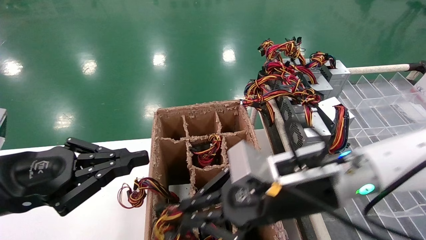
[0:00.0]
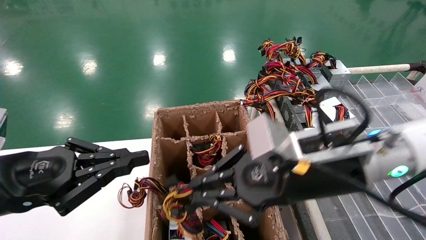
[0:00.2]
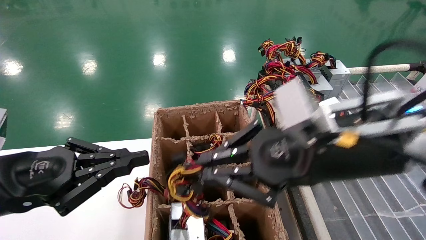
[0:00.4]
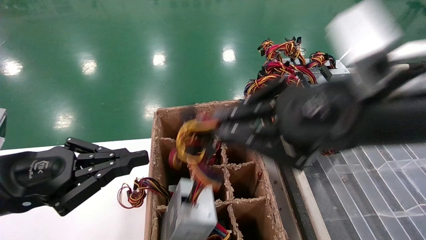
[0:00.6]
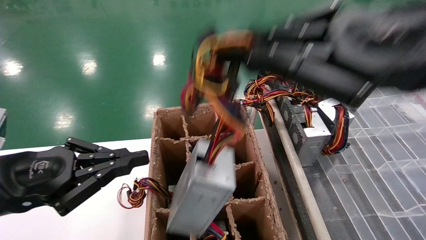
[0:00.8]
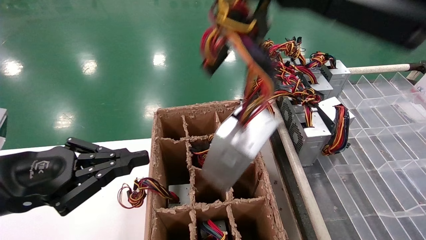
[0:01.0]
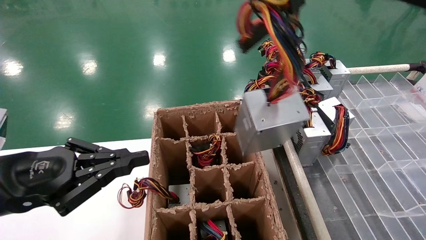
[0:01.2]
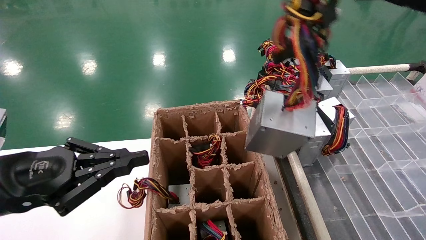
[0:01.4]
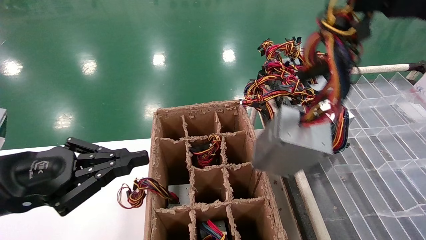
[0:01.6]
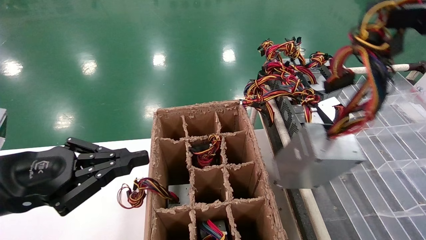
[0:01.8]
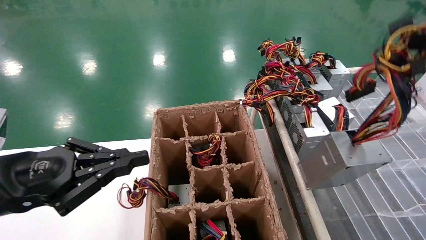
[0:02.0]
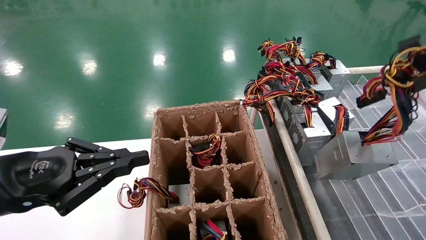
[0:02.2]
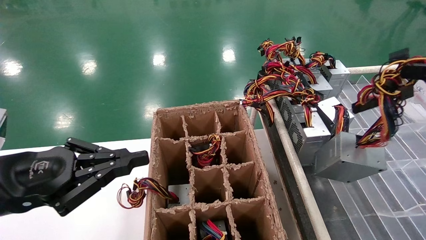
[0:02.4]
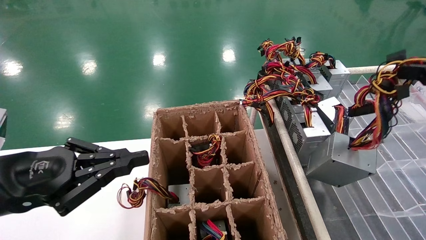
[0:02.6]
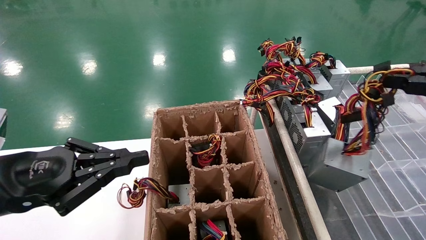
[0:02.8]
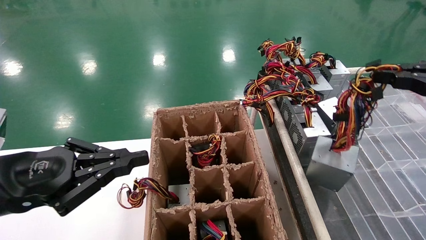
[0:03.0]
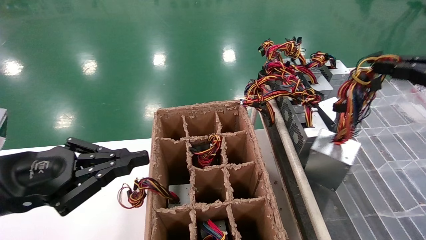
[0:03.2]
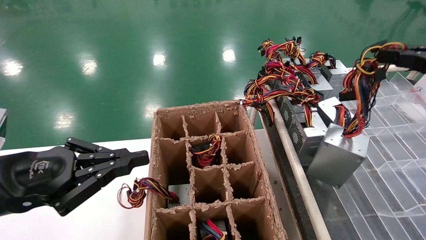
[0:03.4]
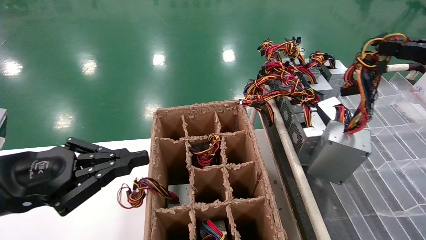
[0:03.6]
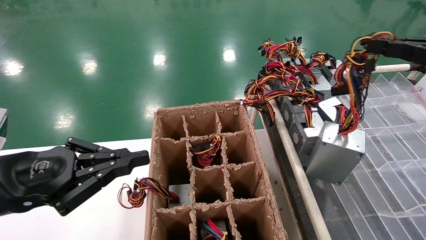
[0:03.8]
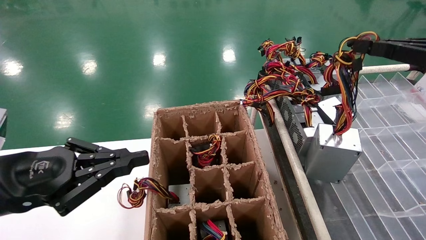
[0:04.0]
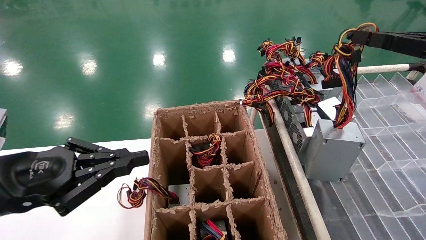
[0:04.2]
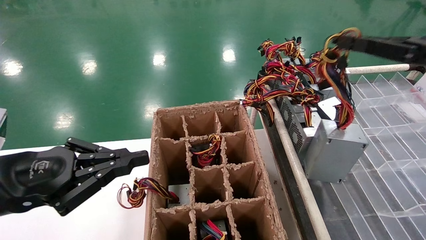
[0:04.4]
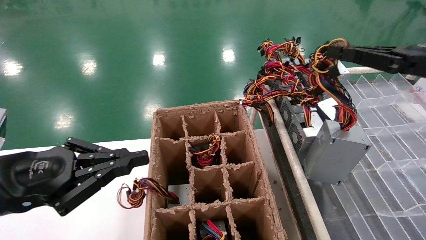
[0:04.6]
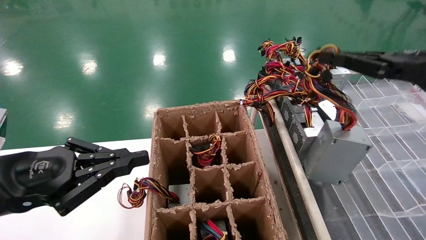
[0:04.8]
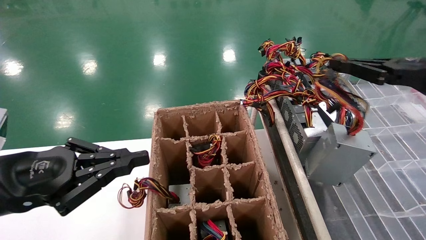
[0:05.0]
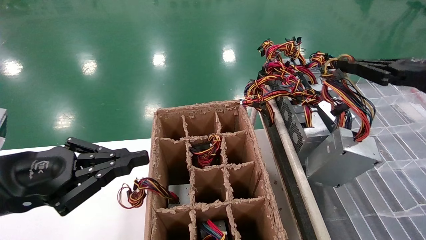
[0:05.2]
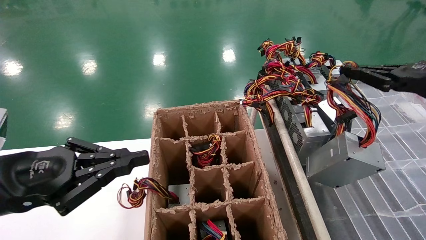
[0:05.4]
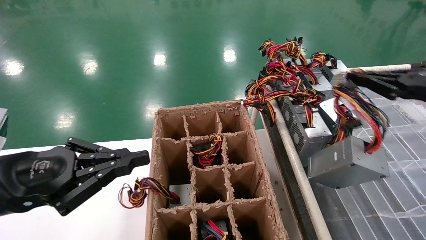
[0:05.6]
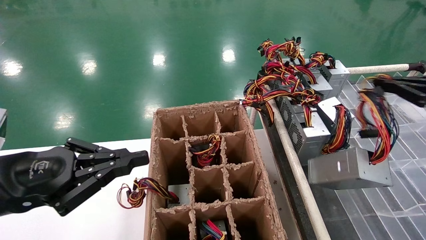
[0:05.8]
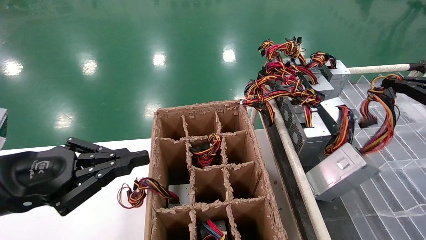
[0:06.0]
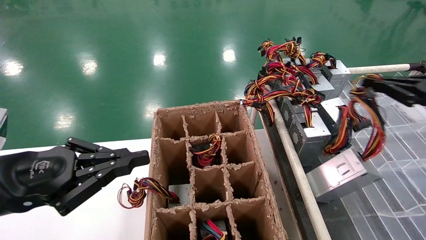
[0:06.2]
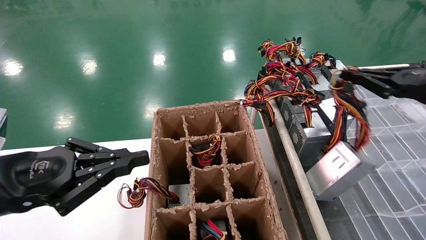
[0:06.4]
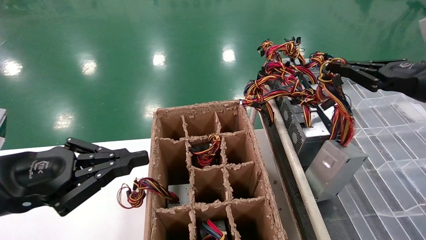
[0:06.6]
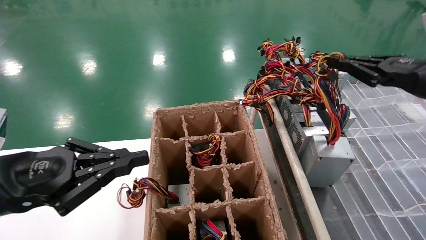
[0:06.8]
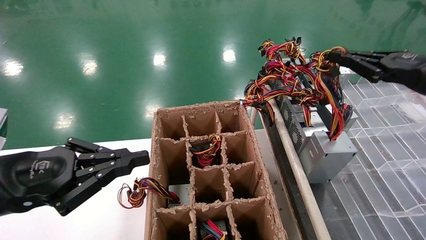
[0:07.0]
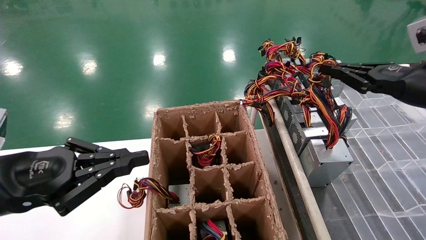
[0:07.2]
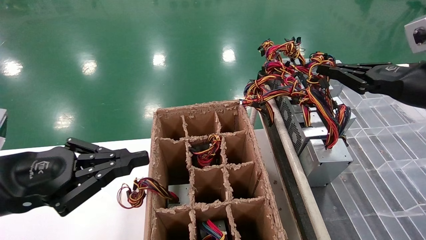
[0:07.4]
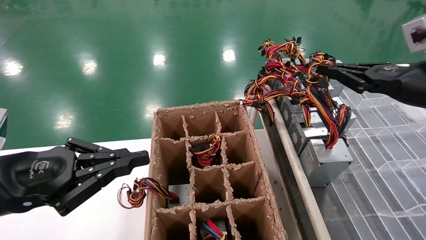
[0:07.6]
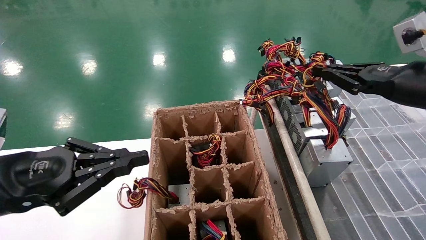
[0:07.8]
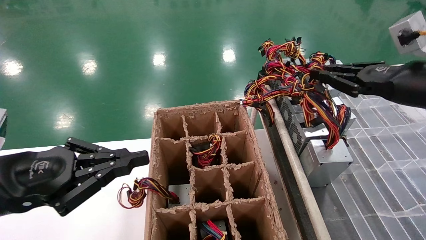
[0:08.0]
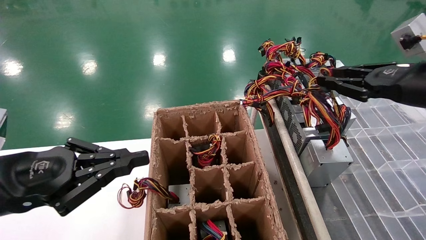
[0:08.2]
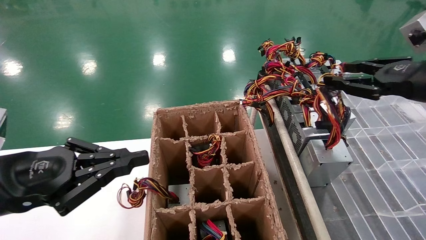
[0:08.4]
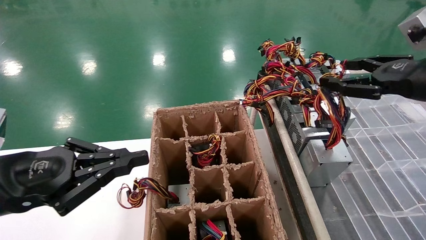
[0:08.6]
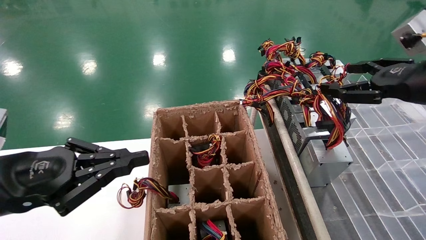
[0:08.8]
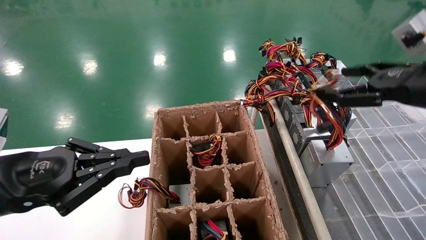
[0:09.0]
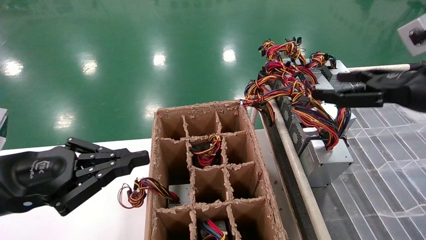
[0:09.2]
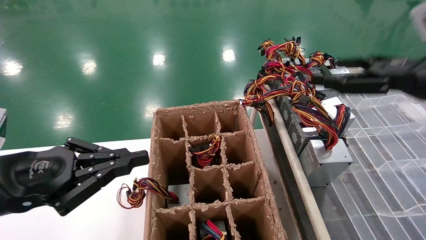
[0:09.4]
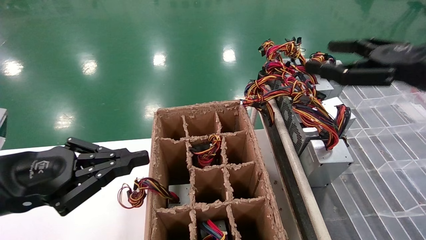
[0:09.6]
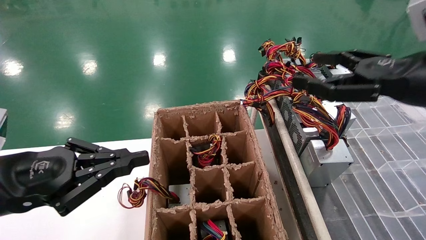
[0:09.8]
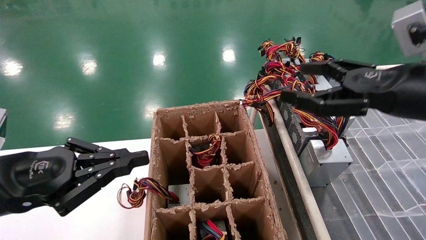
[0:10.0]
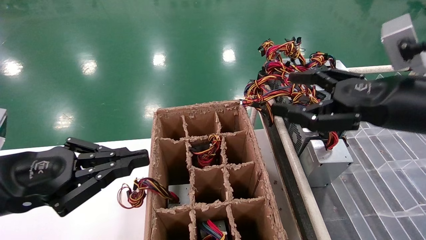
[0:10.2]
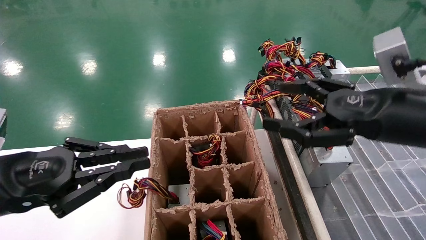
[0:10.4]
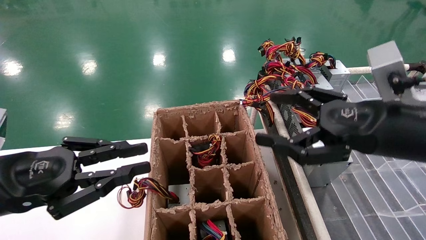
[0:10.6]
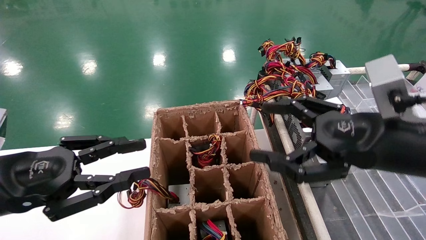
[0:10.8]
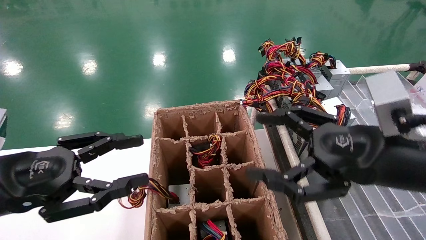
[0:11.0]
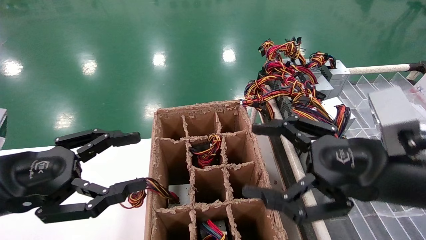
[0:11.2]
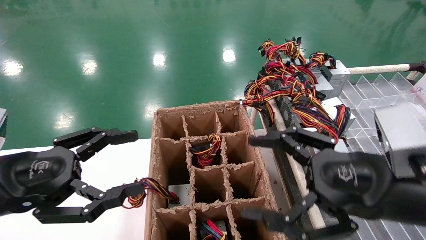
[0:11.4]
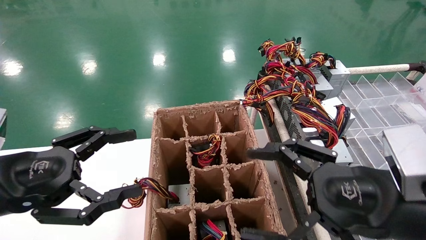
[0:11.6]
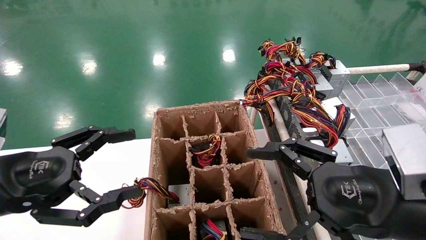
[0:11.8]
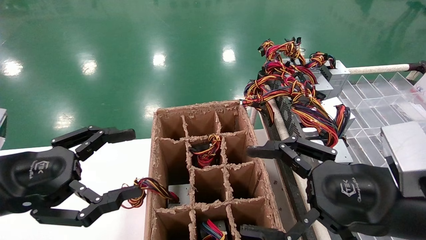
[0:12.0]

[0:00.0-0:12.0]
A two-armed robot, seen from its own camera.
Step, 0:00.0 to 0:09.4: Place the main unit power supply in the designated area.
0:00.0 to 0:01.6: The right gripper shifts some 30 cm upward, to the right and backward.
0:01.6 to 0:03.0: The right gripper goes approximately 15 cm to the right, downward and forward.
0:03.0 to 0:04.4: The right gripper shifts about 5 cm forward.
0:04.4 to 0:06.0: The right gripper shifts some 5 cm to the right.
0:06.0 to 0:07.6: The right gripper moves to the left, approximately 10 cm.
0:07.6 to 0:09.0: The right gripper opens its fingers.
0:09.0 to 0:10.4: The right gripper is displaced to the left by approximately 5 cm.
0:10.4 to 0:12.0: The right gripper goes some 10 cm downward; the left gripper opens up.

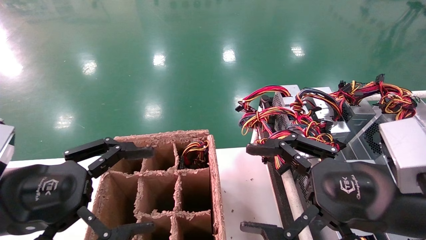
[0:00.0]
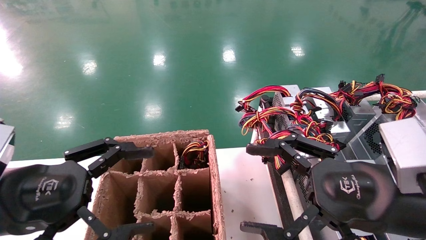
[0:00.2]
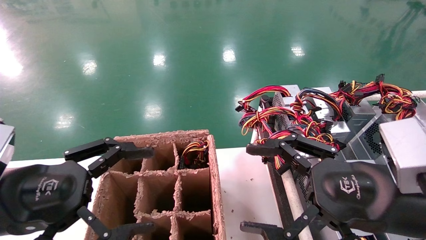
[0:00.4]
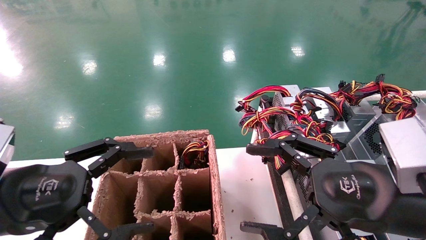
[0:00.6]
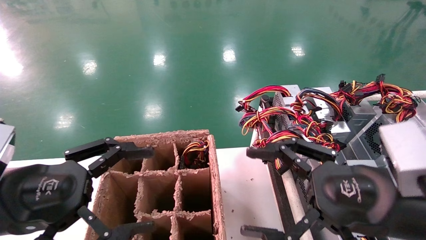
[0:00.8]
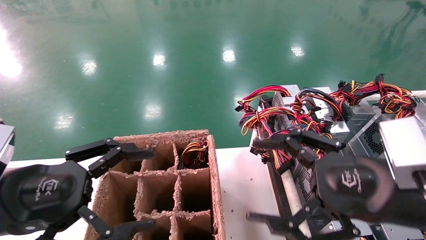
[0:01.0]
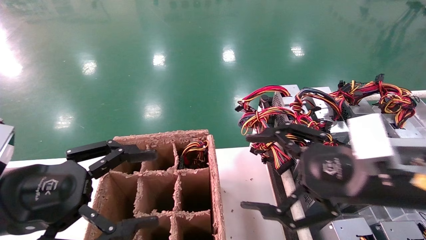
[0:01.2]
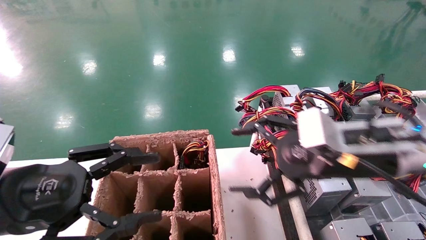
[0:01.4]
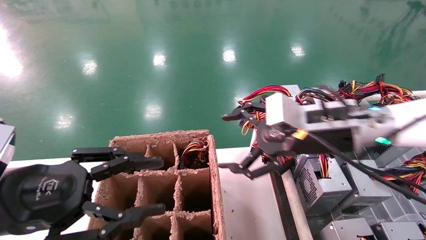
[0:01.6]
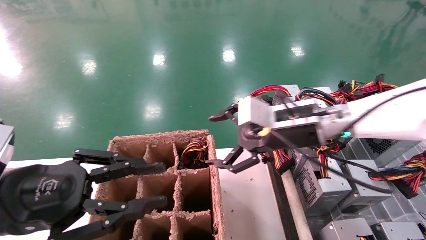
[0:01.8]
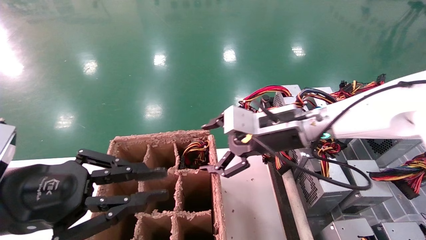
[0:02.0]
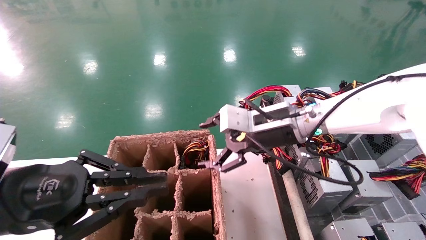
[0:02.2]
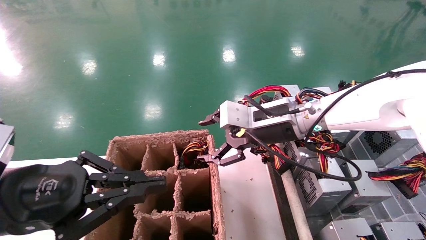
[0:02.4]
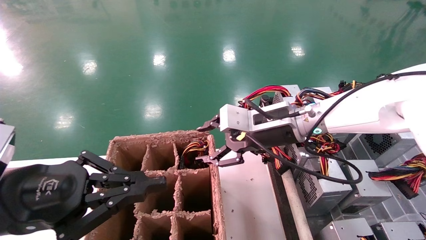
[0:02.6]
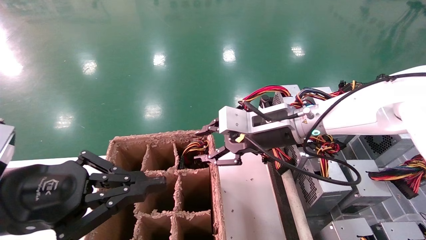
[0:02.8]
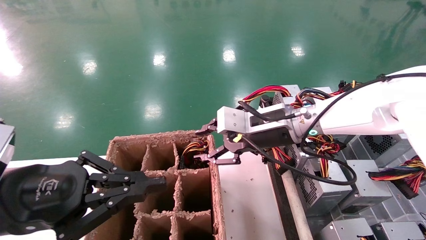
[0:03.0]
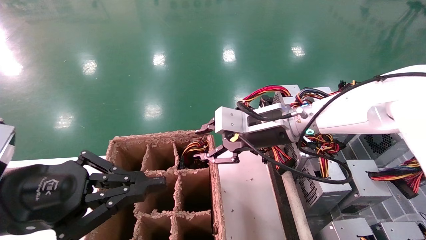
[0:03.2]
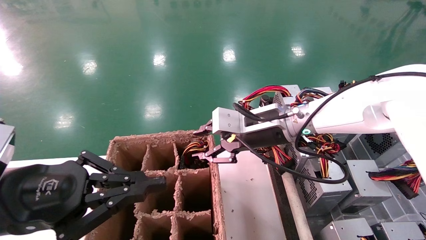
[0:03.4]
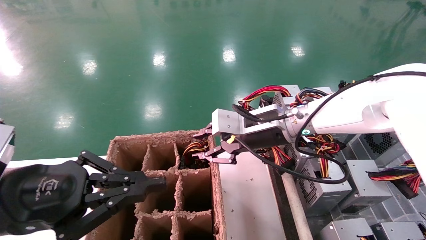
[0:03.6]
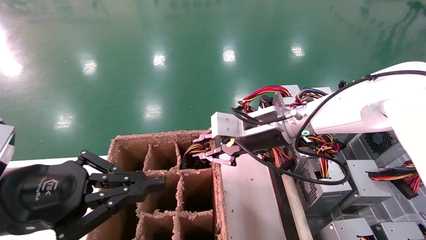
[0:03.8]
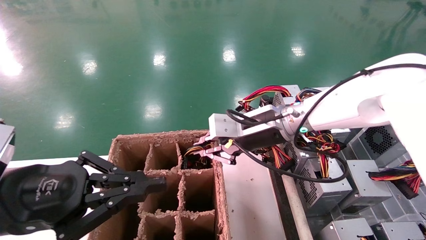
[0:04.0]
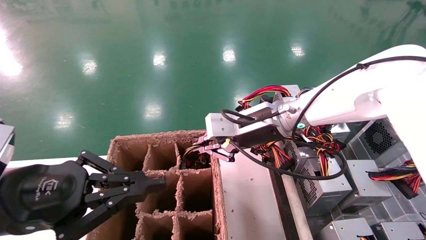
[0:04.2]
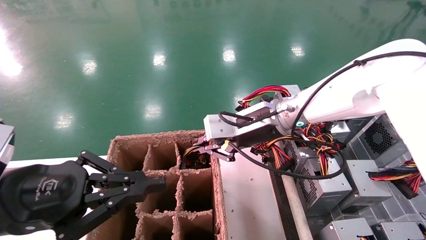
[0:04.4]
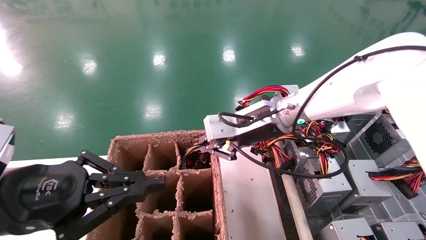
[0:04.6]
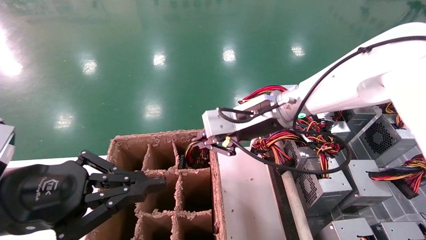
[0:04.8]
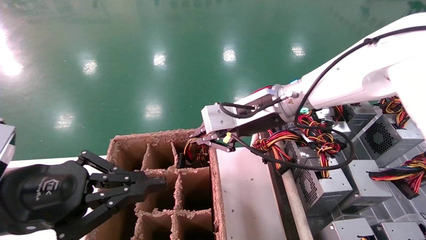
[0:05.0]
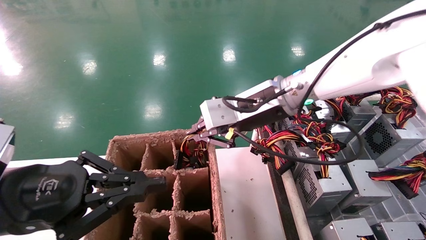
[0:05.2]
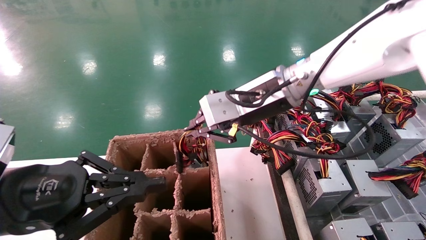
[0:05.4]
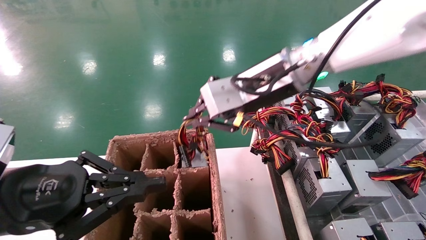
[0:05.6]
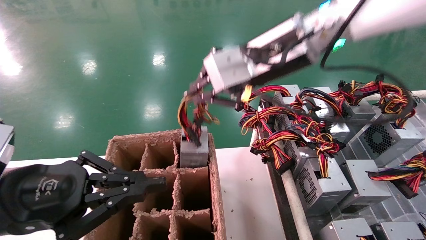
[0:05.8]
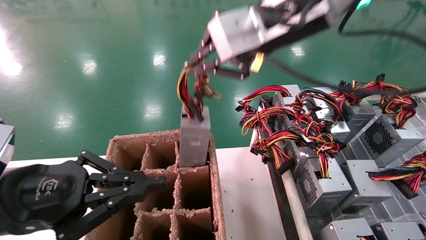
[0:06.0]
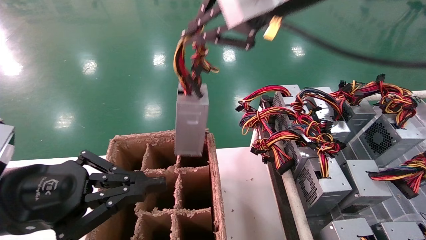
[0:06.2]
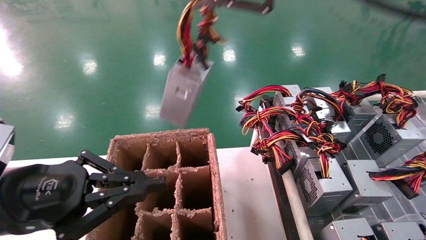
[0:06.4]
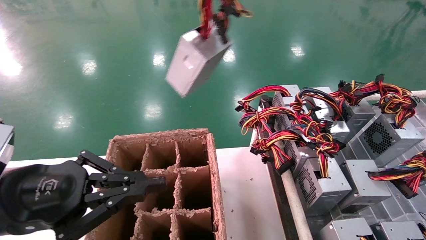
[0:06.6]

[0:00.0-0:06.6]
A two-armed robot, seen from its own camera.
Step, 0:01.4 to 0:04.2: Grab the main unit power supply from the containment box.
0:00.0 to 0:01.6: The right gripper heads forward, covering approximately 15 cm.
0:01.6 to 0:03.2: The left gripper closes its fingers. Meanwhile the right gripper moves forward and to the left, approximately 10 cm, and closes its fingers.
0:03.2 to 0:05.0: The right gripper goes about 5 cm upward, and closes its fingers.
0:05.0 to 0:06.6: The right gripper moves upward and backward, some 30 cm.
